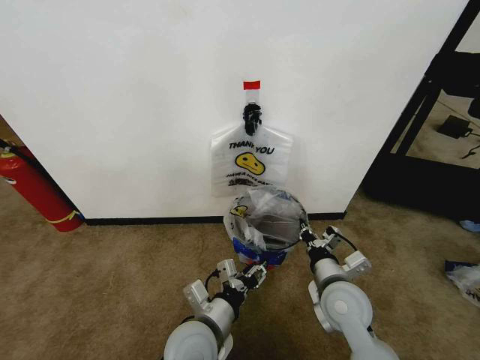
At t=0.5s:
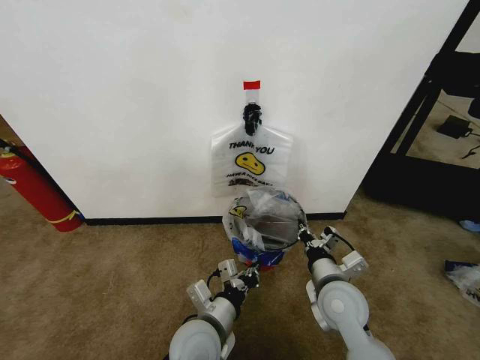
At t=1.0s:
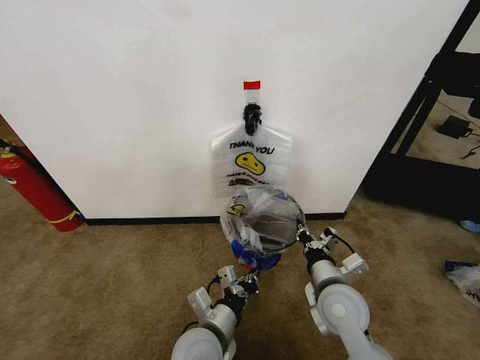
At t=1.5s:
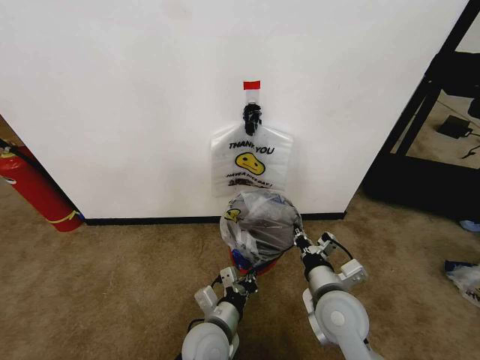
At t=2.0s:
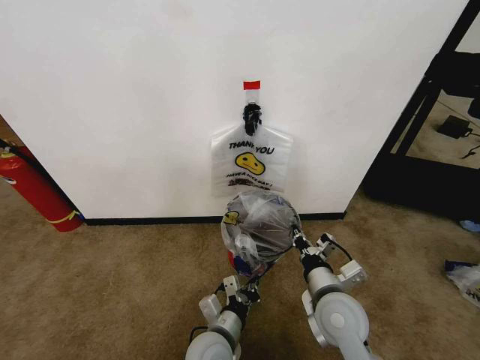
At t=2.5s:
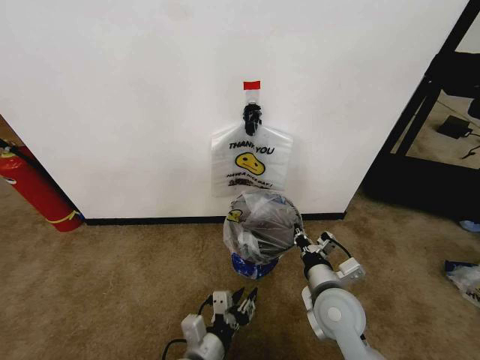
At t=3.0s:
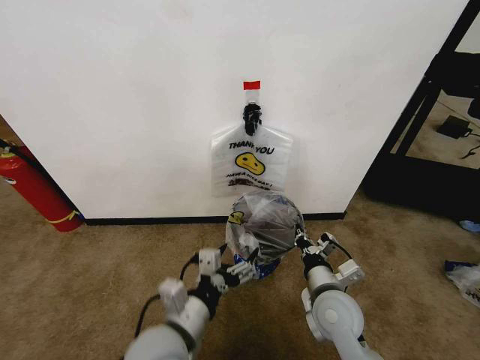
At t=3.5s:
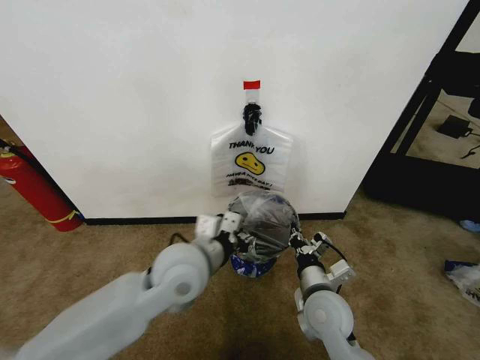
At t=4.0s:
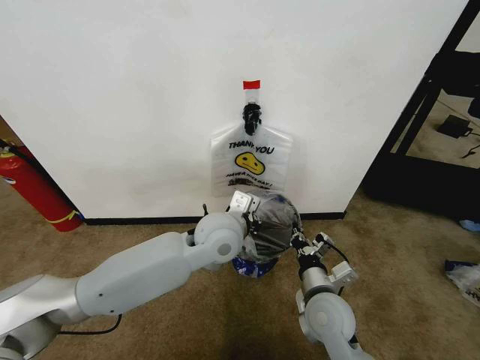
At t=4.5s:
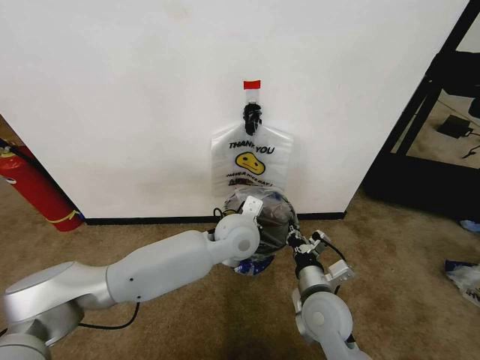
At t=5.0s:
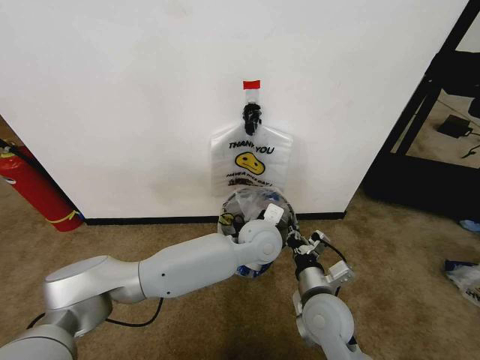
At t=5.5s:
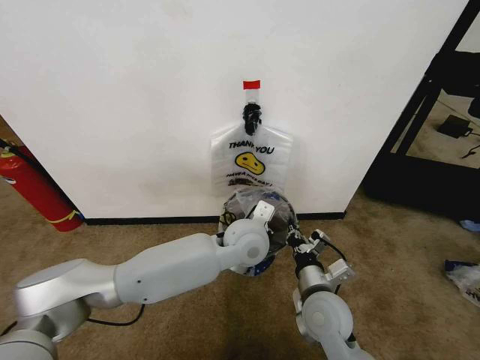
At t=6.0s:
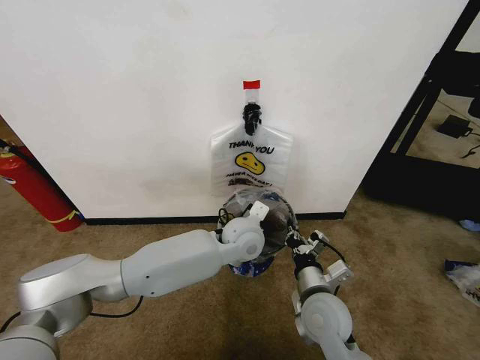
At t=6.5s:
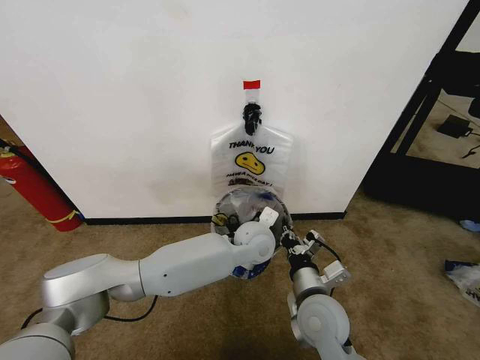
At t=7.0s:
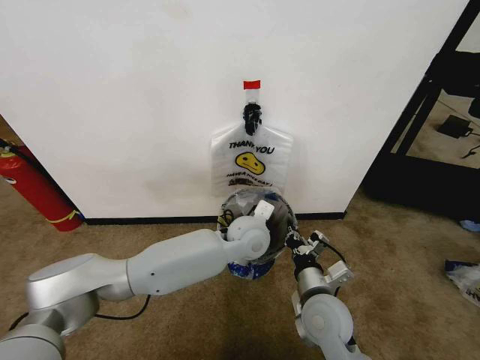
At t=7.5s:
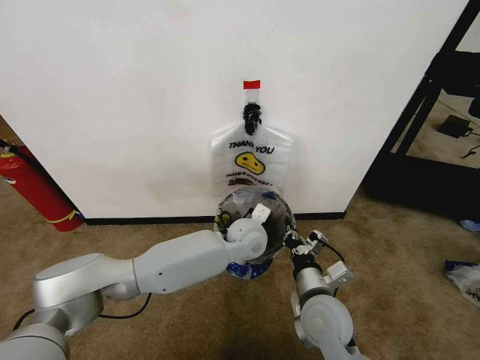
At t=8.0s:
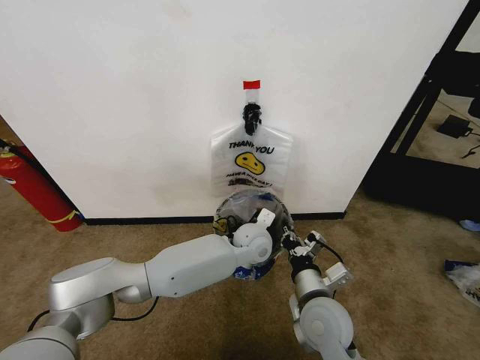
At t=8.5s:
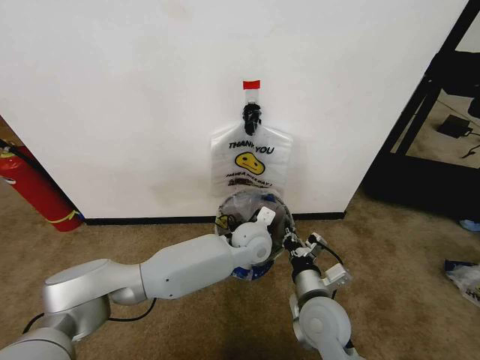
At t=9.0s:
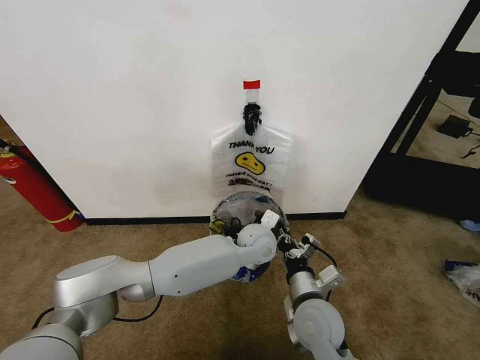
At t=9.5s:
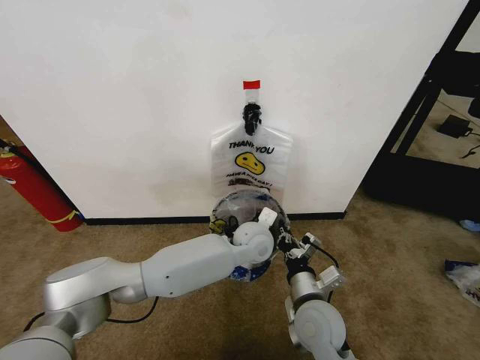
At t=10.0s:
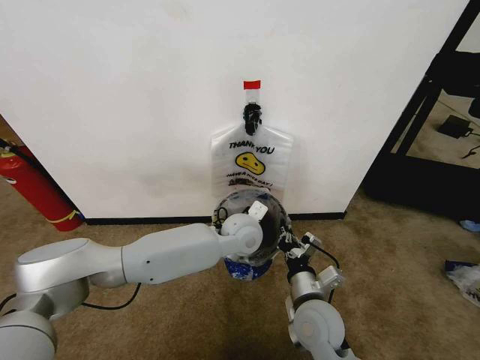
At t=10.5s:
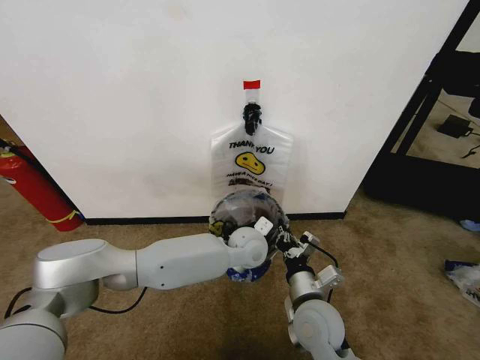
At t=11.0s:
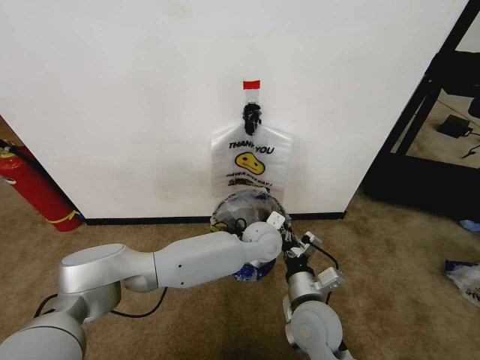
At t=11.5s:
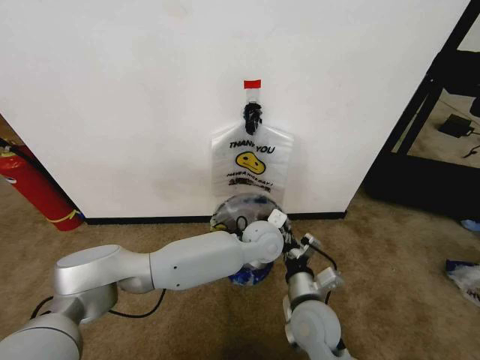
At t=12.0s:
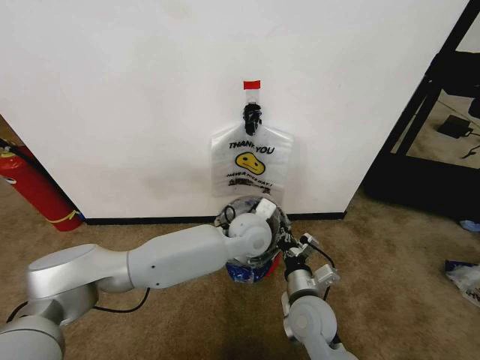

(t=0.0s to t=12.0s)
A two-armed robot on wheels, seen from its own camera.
Task of the whole recording: Pick up the garbage bag from the wall and place it over the trash bin.
t=0.0s - t=2.0s: The left gripper is displaced downward by some 10 cm, and closes.
t=2.0s - t=4.0s: The left gripper travels upward and forward by about 25 cm, and opens, then closes again.
t=4.0s - t=6.0s: The left gripper travels downward and to the right by some 10 cm.
t=6.0s - t=8.0s: The left gripper changes place by about 5 cm.
t=8.0s - t=10.0s: The left gripper shifts by approximately 5 cm.
t=10.0s - t=12.0s: The left gripper opens.

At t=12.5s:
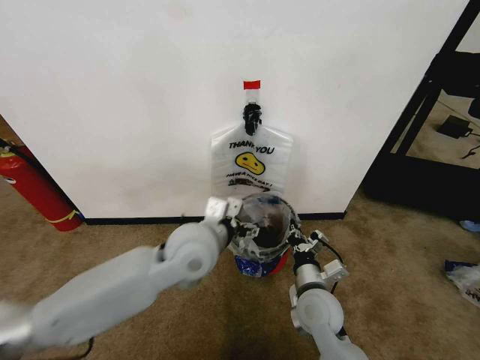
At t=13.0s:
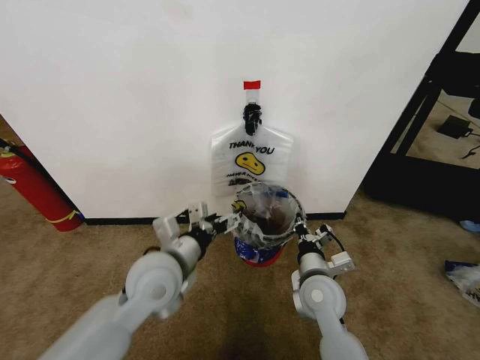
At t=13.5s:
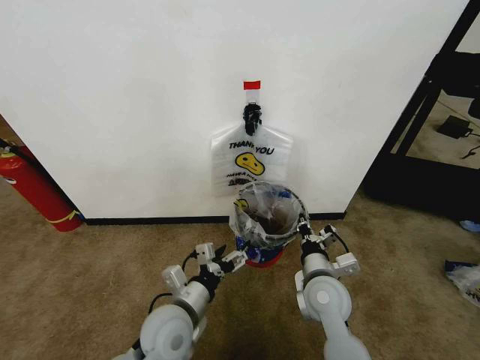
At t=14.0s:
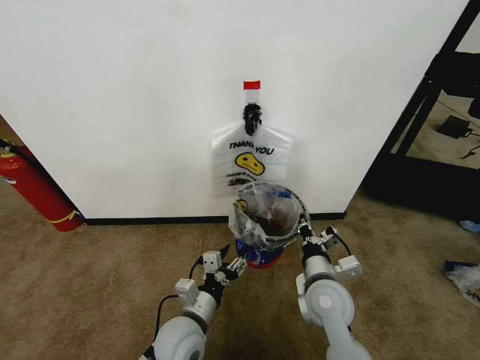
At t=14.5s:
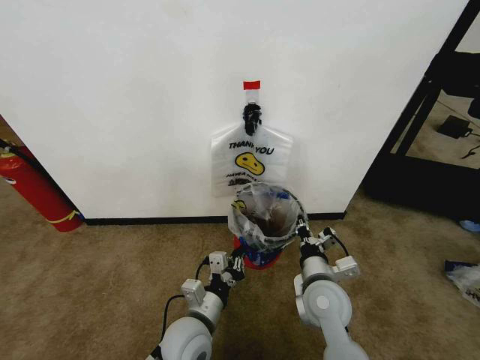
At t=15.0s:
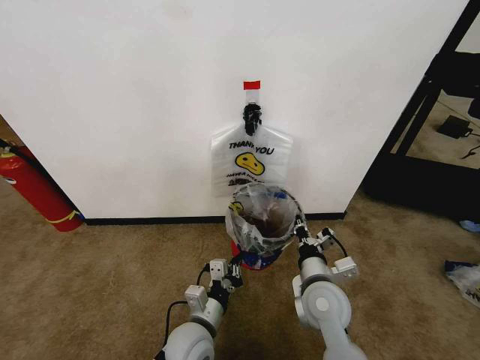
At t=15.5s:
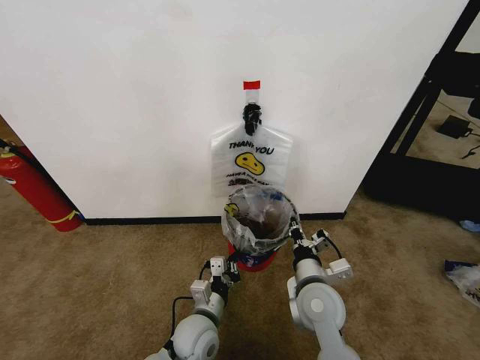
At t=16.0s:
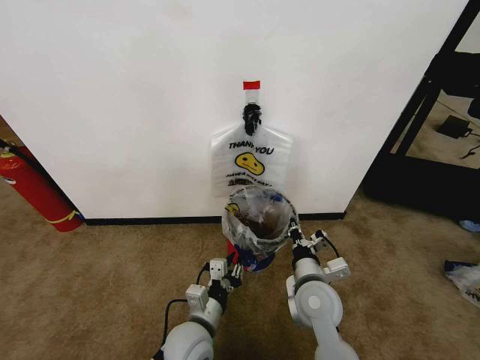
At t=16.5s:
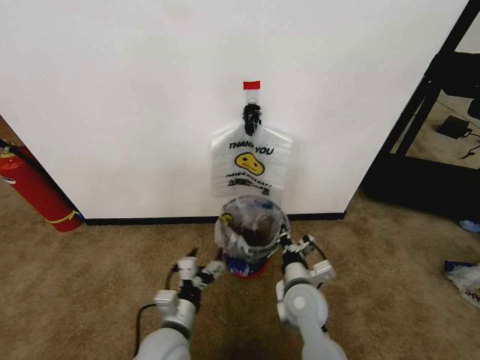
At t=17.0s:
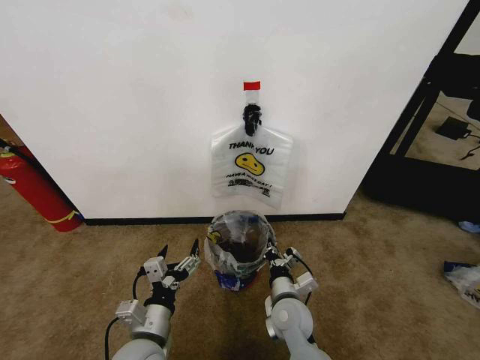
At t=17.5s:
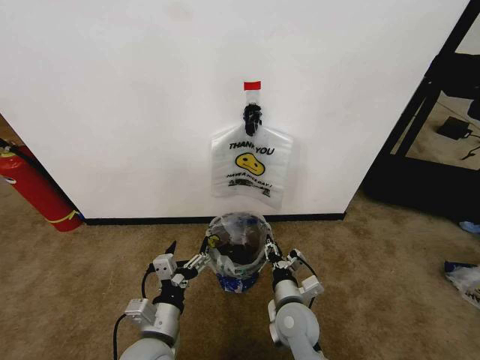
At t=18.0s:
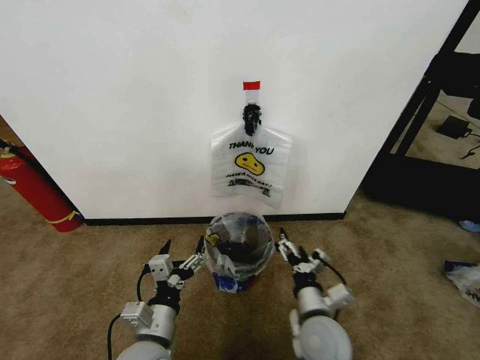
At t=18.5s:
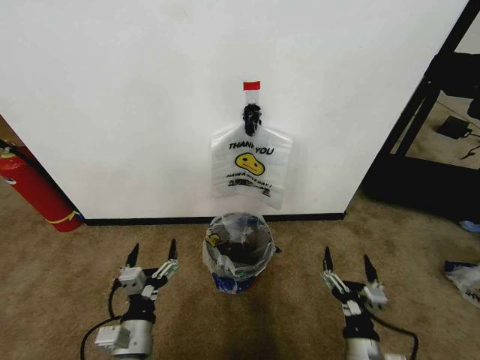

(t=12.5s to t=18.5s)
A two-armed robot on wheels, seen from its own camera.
Task of the whole recording: Pick up the garbage bag from the wall and place it over the trash bin.
t=12.5s - t=14.5s: The left gripper goes roughly 20 cm downward and backward, and closes its fingers.
t=14.5s - t=16.5s: The left gripper opens its fingers; the right gripper changes place by roughly 5 cm.
t=16.5s - t=18.5s: The right gripper is displaced backward and to the right by some 20 cm, and opens up; the left gripper travels to the left and backward by approximately 10 cm.

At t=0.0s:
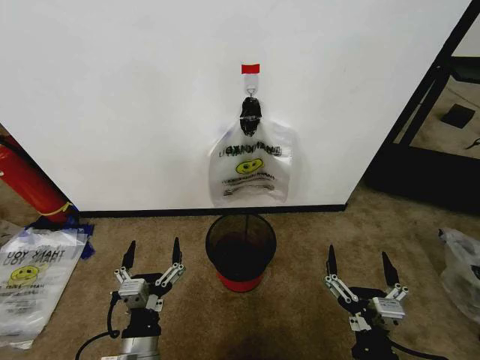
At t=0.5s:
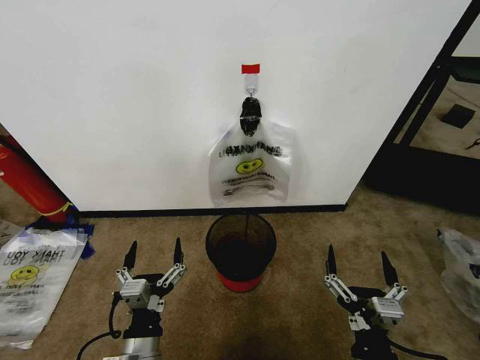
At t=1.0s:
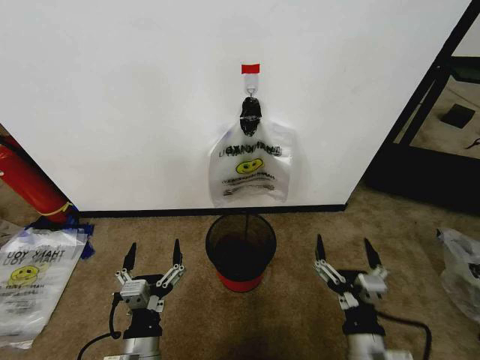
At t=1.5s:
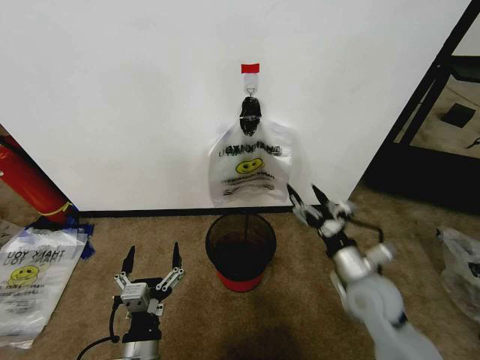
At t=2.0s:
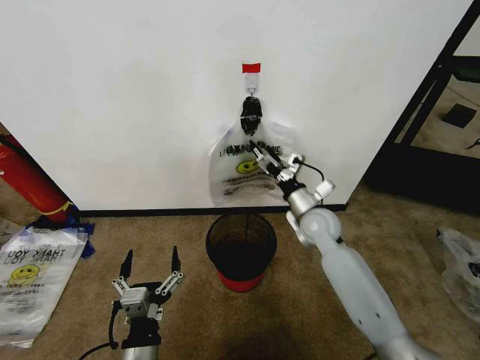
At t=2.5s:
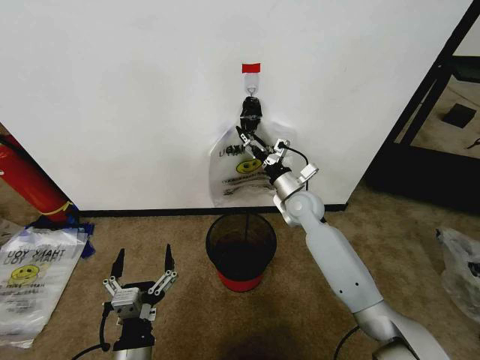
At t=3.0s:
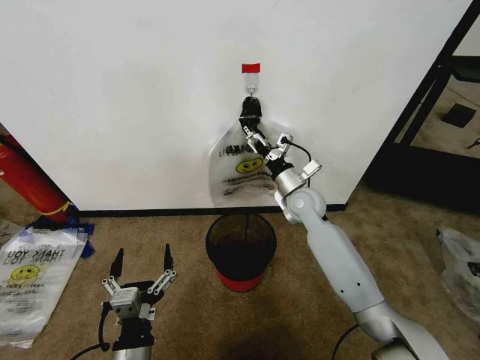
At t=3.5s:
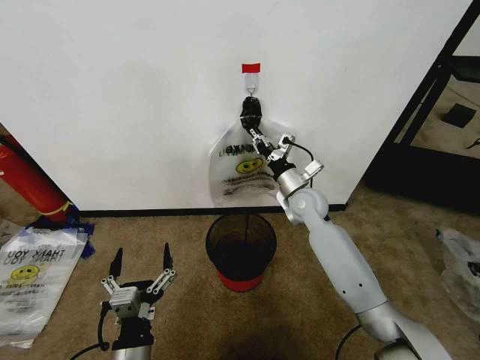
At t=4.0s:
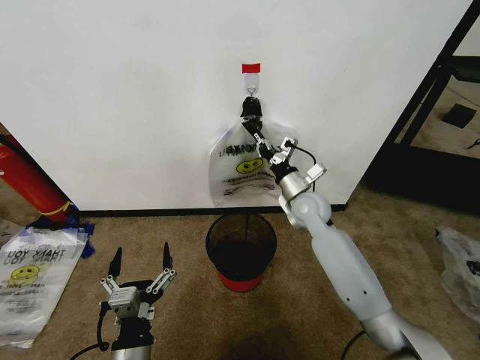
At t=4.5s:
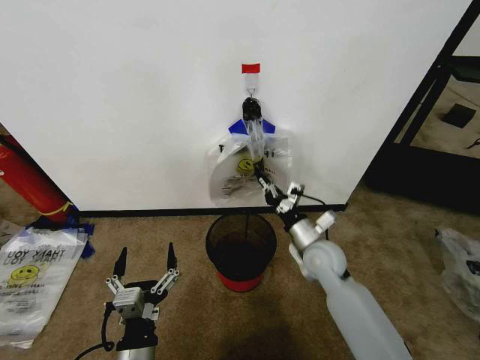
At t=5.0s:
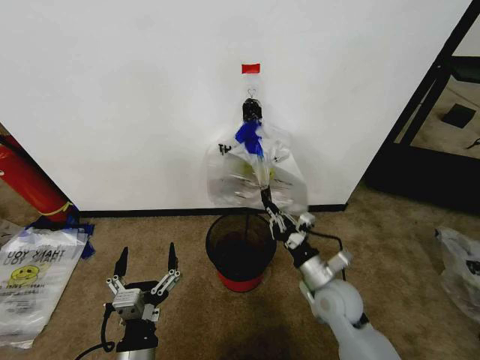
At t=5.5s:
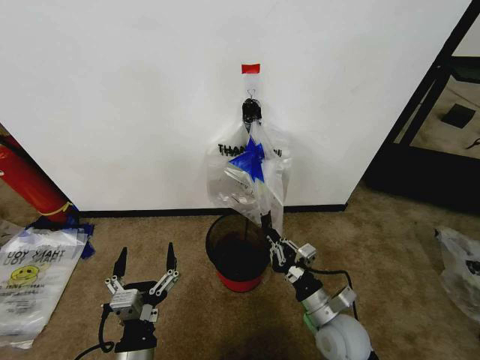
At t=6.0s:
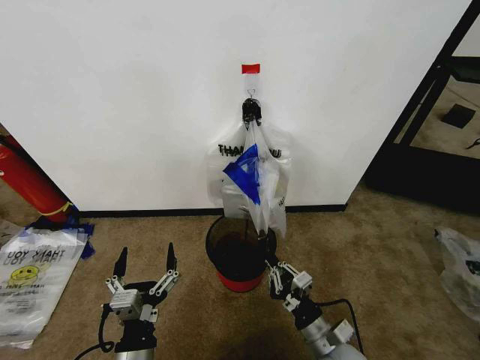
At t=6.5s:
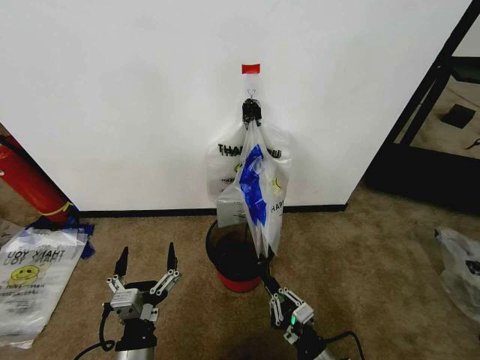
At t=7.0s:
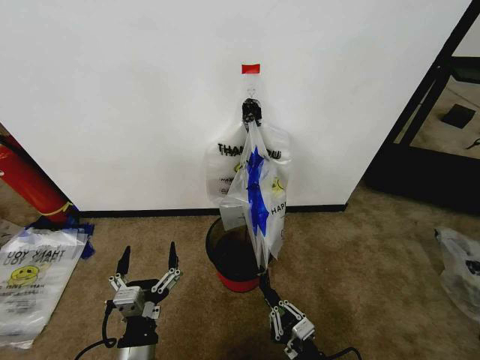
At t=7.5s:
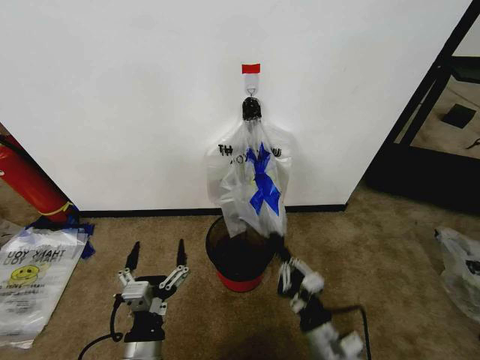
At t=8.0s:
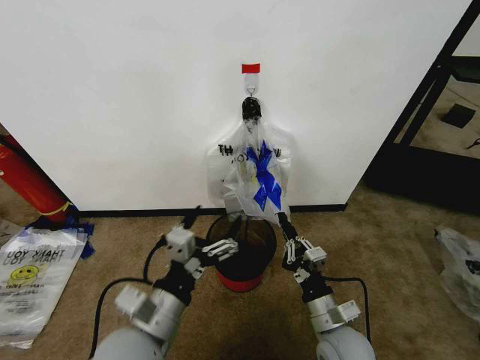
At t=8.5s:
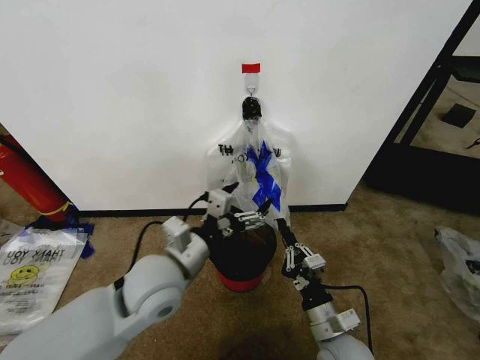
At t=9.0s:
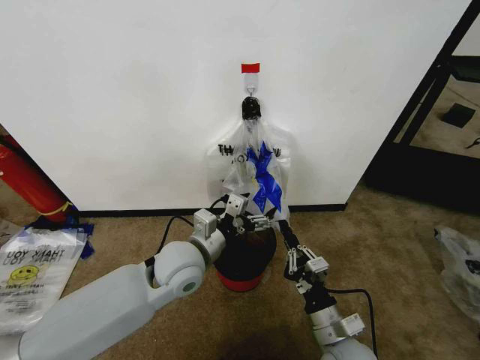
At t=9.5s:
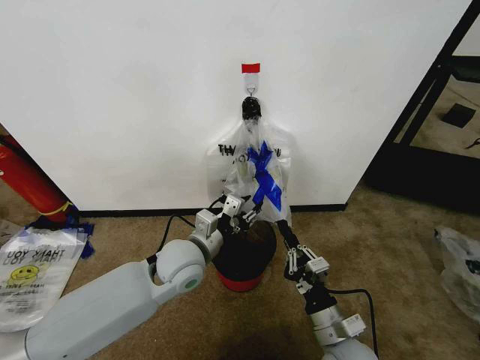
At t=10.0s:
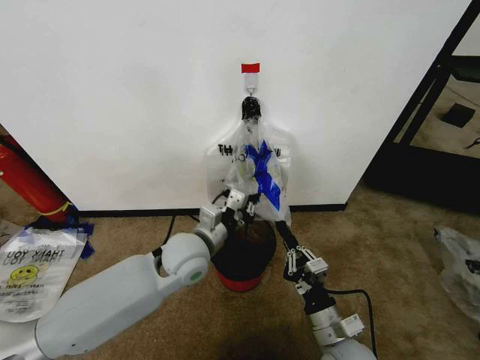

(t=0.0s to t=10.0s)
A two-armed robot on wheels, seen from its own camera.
Task of the whole recording: Pick up the garbage bag from the wall and place it over the trash bin.
t=2.0s - t=4.0s: The right gripper closes up.
t=4.0s - t=6.0s: The right gripper shifts some 35 cm backward and downward.
t=6.0s - t=8.0s: The right gripper moves upward, roughly 5 cm, and moves approximately 10 cm backward and comes back. The left gripper travels upward and forward by about 10 cm.
t=8.0s - t=10.0s: The left gripper heads forward, covering some 20 cm, and closes its fingers.
